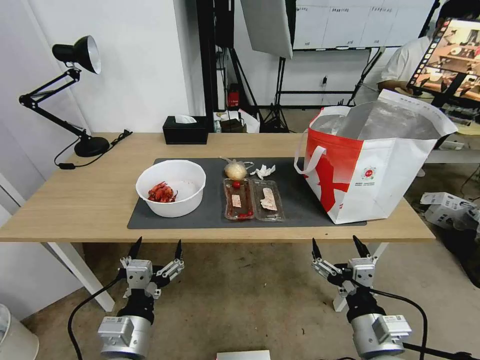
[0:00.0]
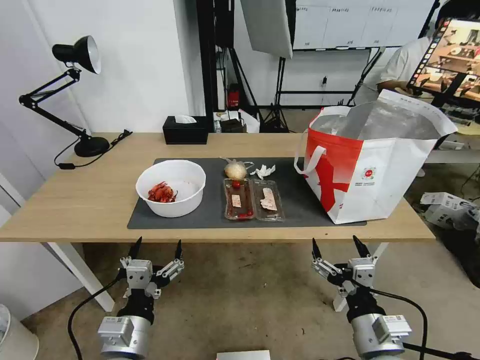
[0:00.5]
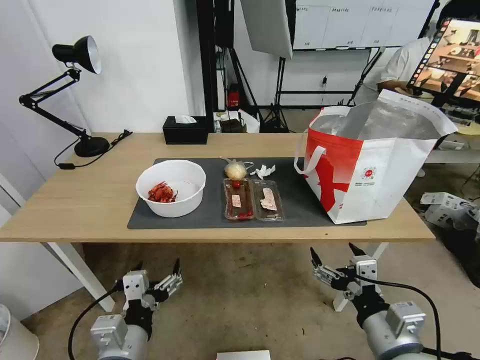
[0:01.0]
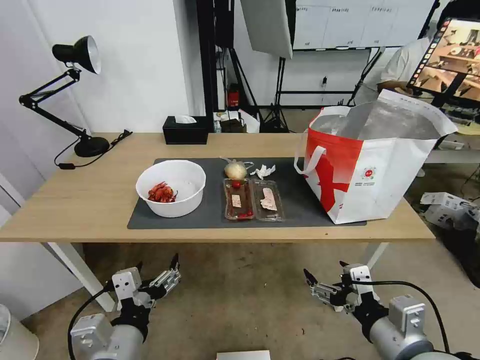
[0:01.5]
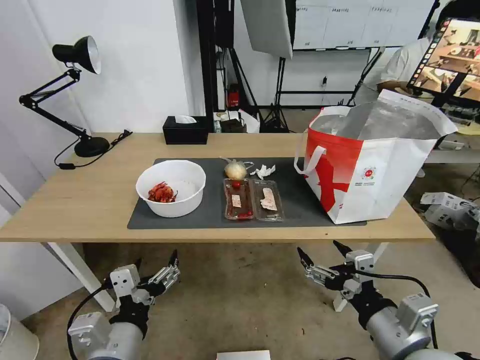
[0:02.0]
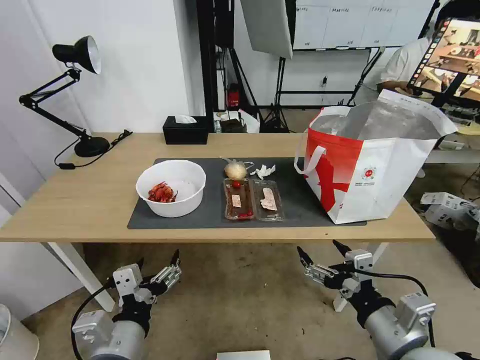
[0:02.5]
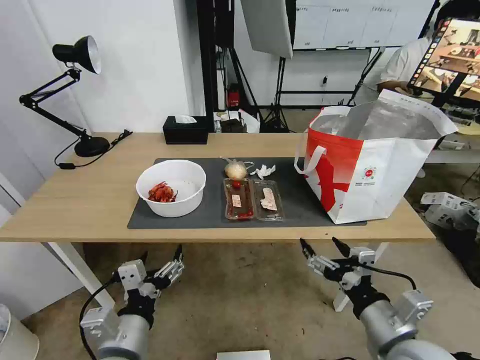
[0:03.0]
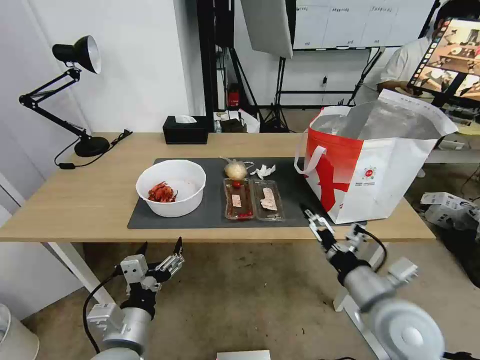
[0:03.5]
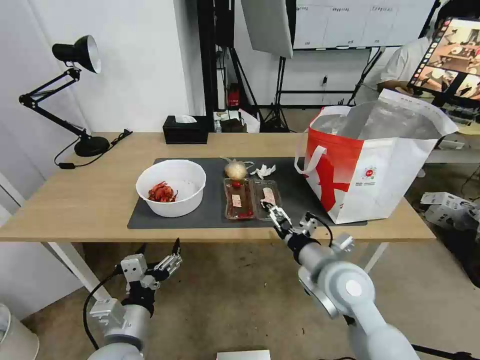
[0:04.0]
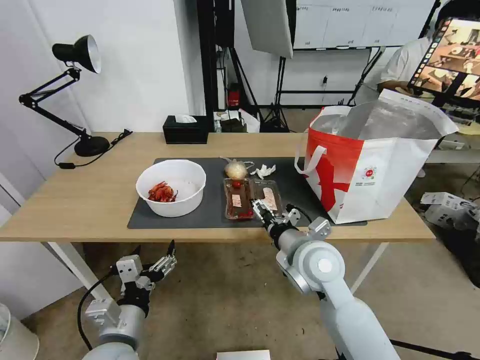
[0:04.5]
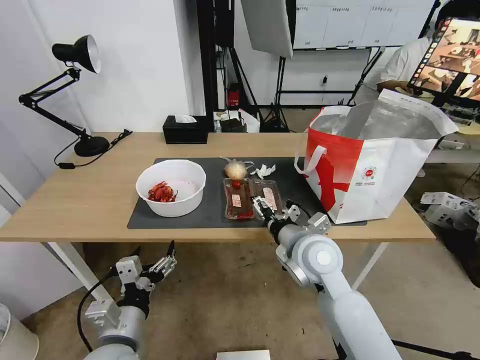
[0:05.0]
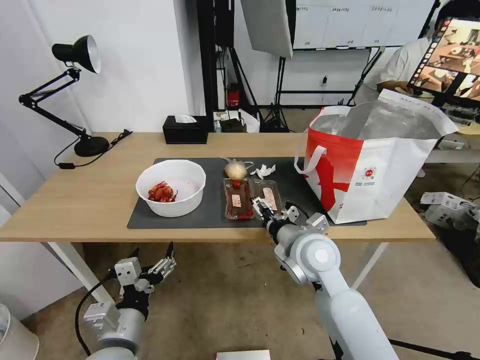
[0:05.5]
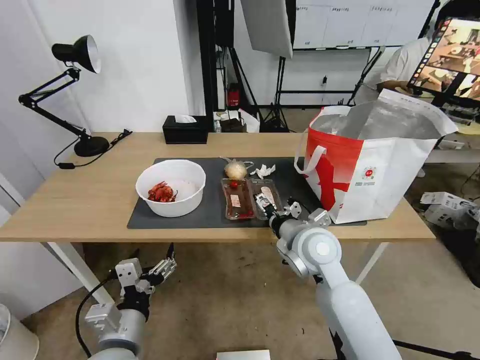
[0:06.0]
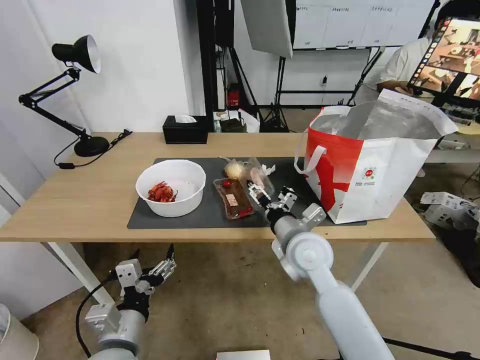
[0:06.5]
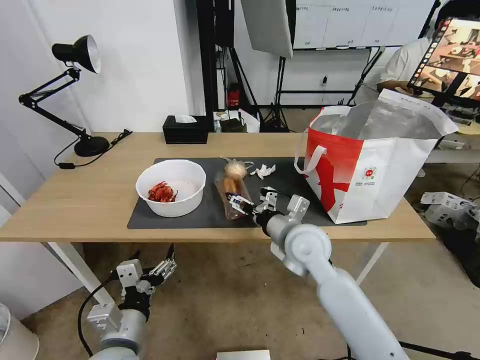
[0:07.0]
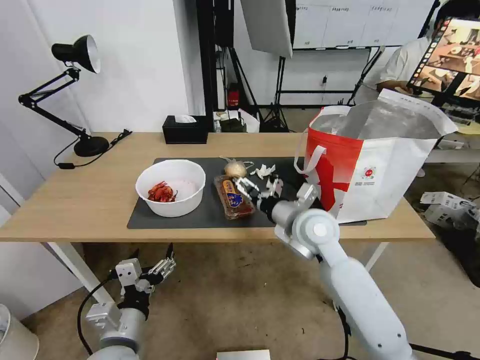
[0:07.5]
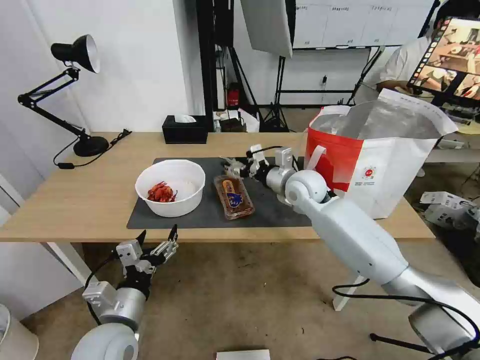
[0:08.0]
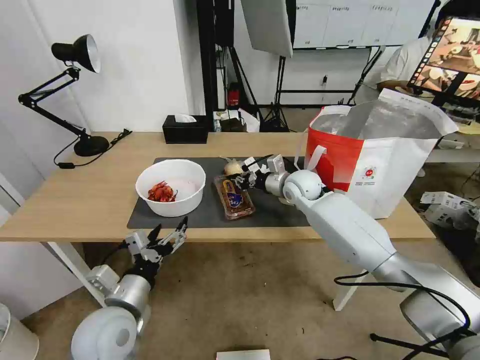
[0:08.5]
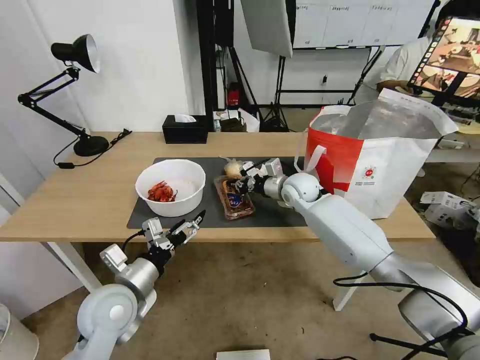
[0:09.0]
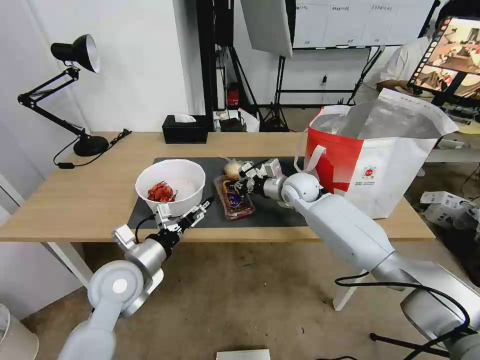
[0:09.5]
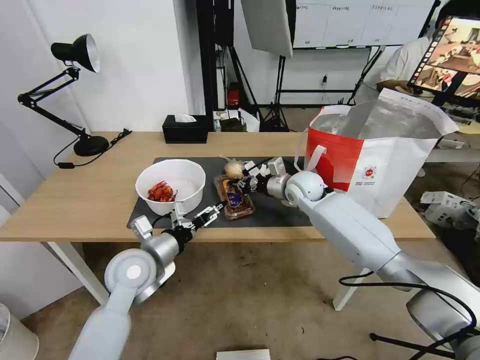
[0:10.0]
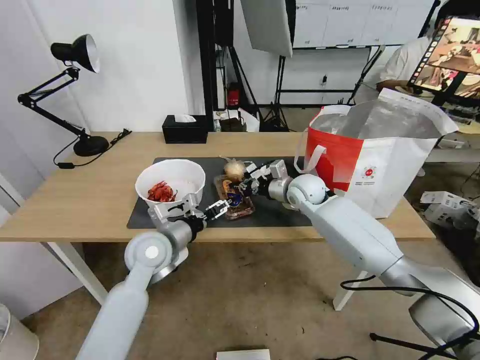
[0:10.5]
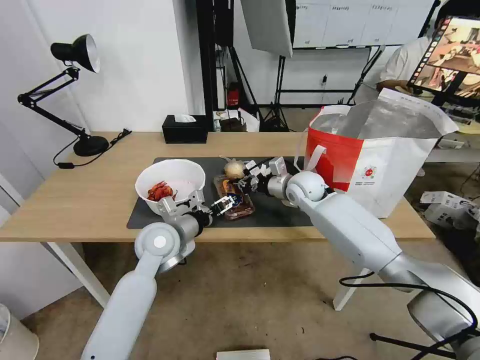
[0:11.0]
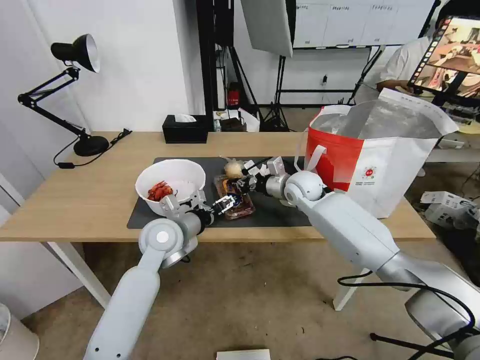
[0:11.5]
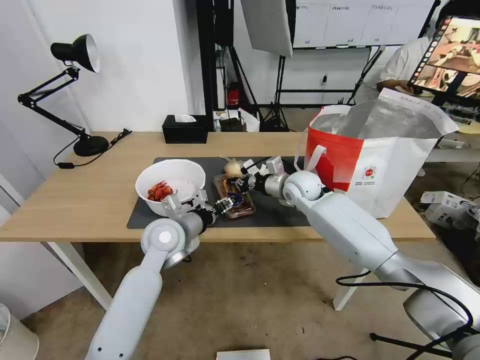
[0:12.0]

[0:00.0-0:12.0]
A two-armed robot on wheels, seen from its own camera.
Task of the whole recording: Pick up the trash from the table and place it into the takeout bag.
0:02.0 to 0:04.0: The right gripper travels forward and to the left by some 15 cm. The left gripper shifts some 5 cm downward.
0:04.0 to 0:06.0: The right gripper shifts about 5 cm forward.
0:06.0 to 0:08.0: The right gripper shifts roughly 15 cm forward.
0:08.0 to 0:10.0: The left gripper heads forward, covering approximately 15 cm; the right gripper shifts by approximately 5 cm, and closes its fingers.
0:10.0 to 0:12.0: The left gripper is displaced forward and to the right by roughly 10 cm, and closes.

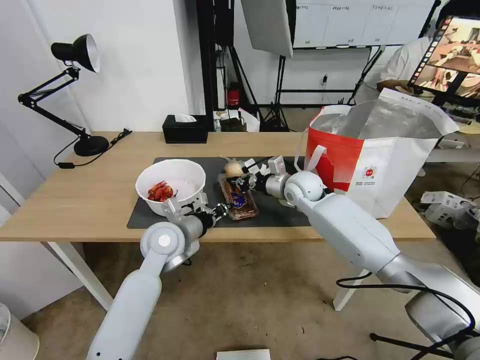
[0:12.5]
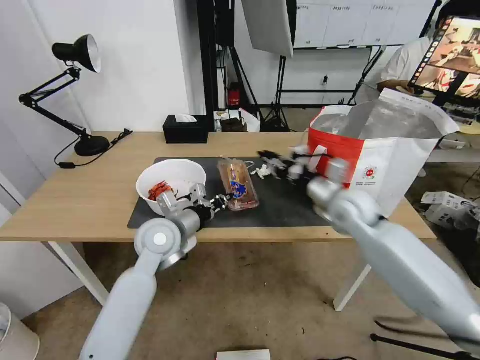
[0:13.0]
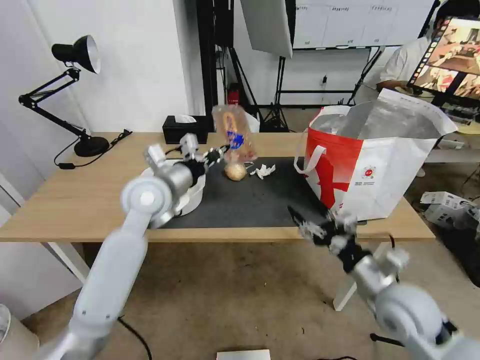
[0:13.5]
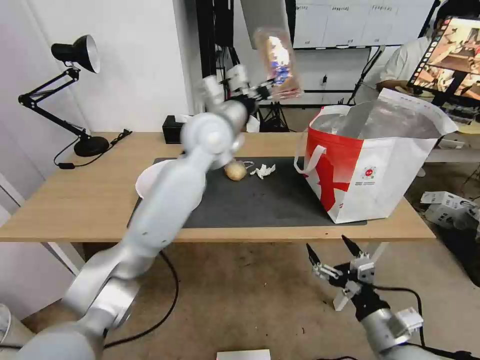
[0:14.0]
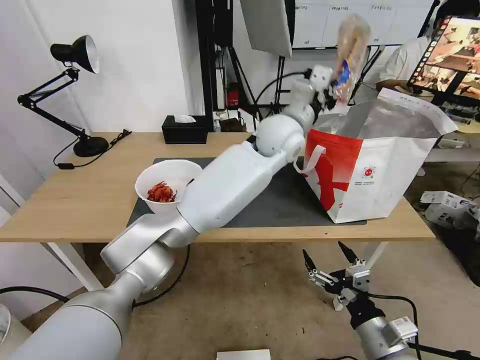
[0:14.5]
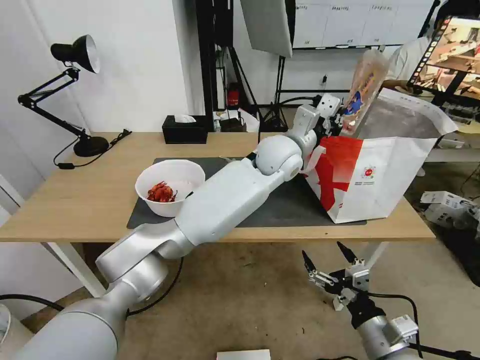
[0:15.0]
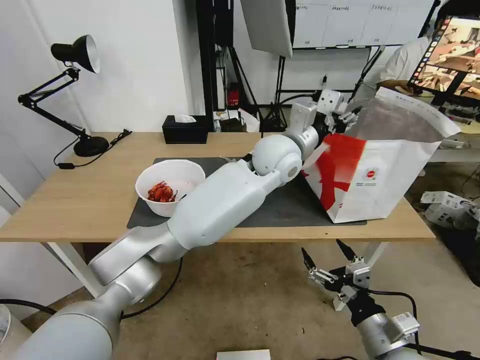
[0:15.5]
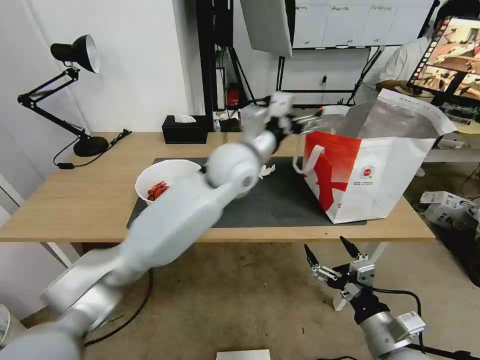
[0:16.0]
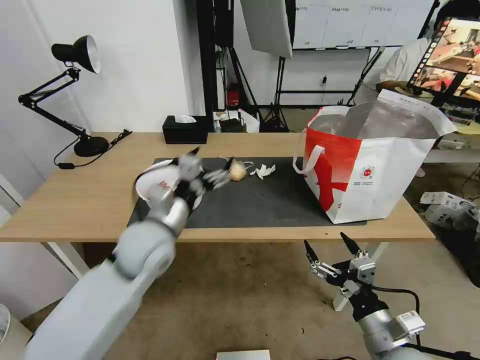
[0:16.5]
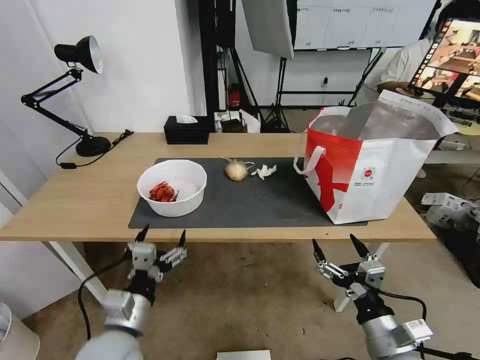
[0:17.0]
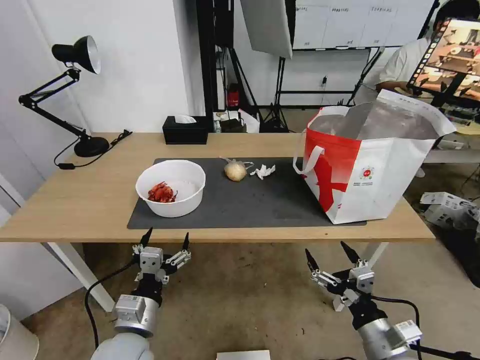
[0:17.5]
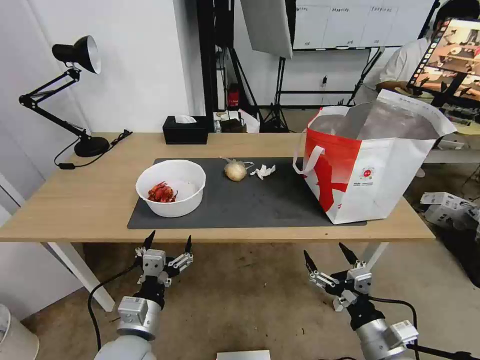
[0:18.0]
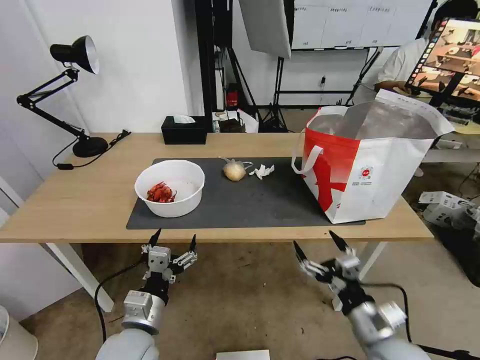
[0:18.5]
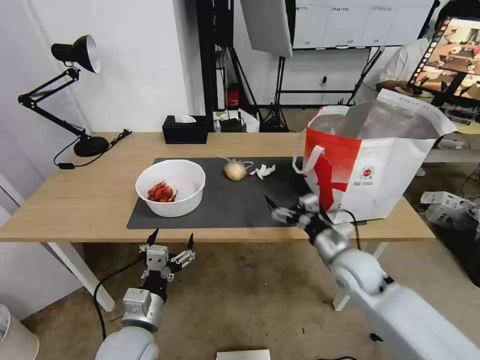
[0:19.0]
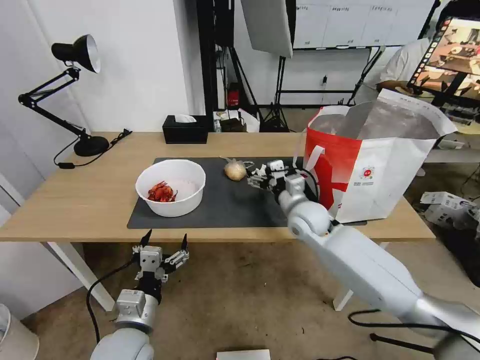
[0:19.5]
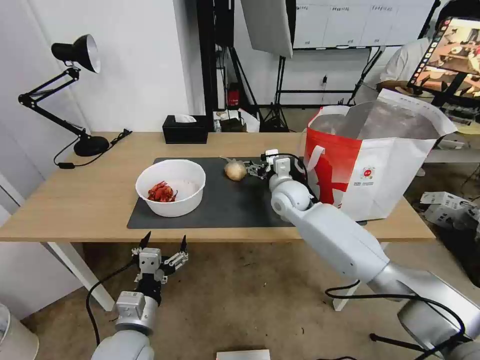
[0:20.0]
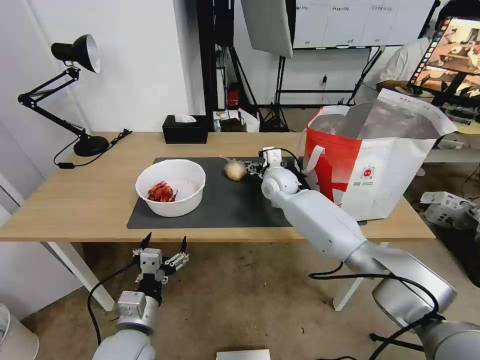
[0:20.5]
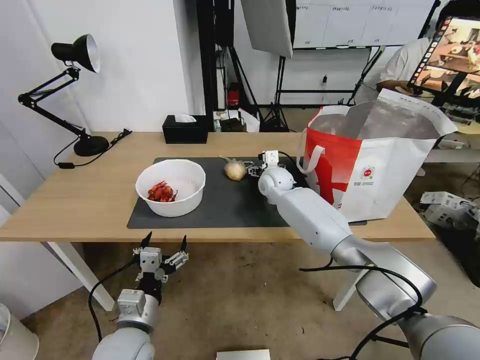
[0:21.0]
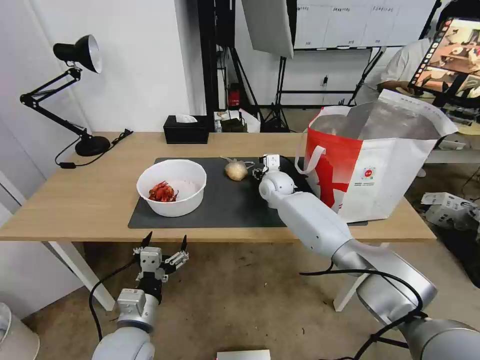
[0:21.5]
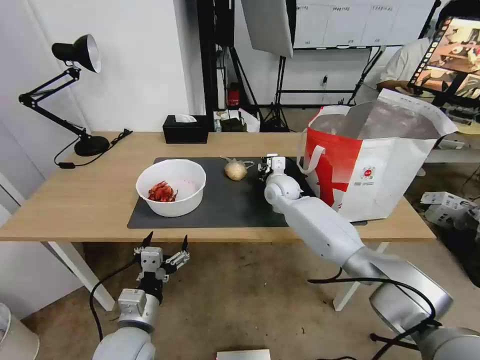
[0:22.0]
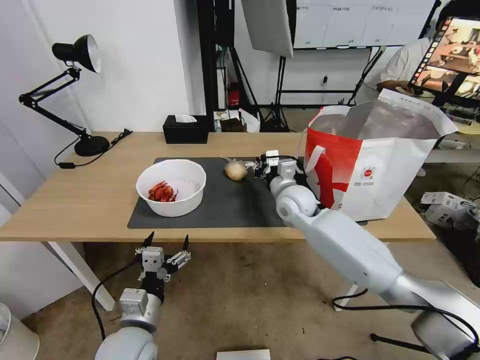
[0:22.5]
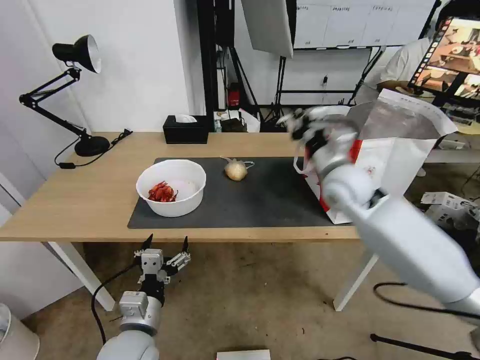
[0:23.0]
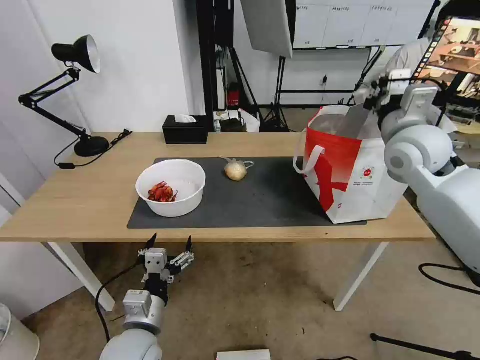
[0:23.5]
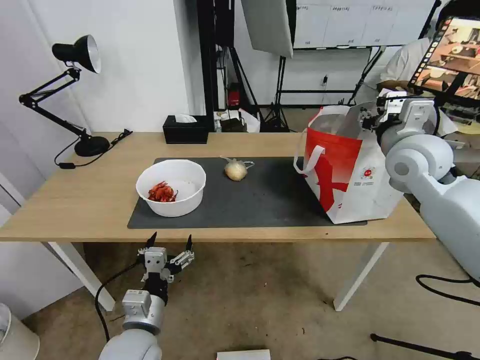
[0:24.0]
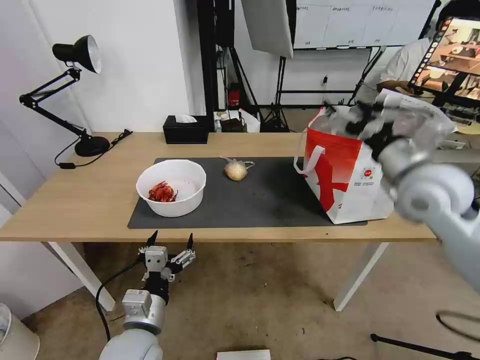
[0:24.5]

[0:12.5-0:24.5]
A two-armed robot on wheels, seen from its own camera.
Task of the whole recording: Pick up the trash from the table and place it into the takeout bag.
0:12.5 to 0:14.5: The right gripper heads backward, covering roughly 40 cm, and opens up, while the left gripper goes approximately 35 cm to the right, upward and forward.
0:14.5 to 0:16.5: The left gripper is displaced to the left, backward and downward by about 35 cm, and opens up.
0:16.5 to 0:18.5: The left gripper is displaced backward and downward by some 20 cm.
0:18.5 to 0:20.5: The right gripper moves forward, approximately 40 cm.
0:20.5 to 0:22.5: The right gripper heads backward, covering roughly 10 cm, and closes its fingers.
0:22.5 to 0:24.5: The right gripper travels to the right, upward and backward by approximately 25 cm, and opens.

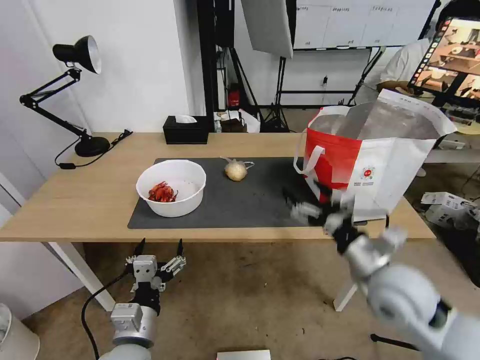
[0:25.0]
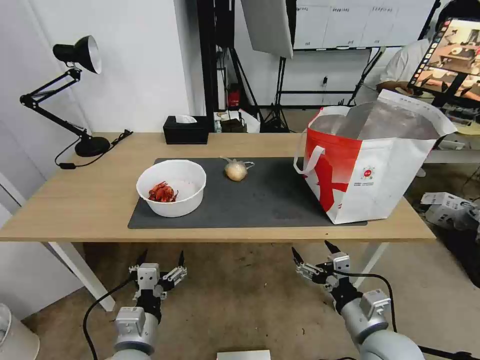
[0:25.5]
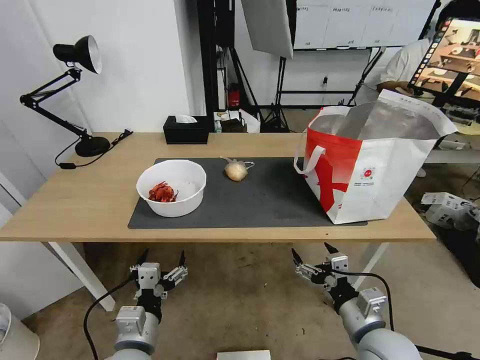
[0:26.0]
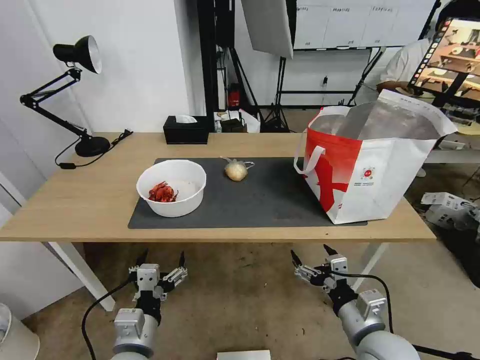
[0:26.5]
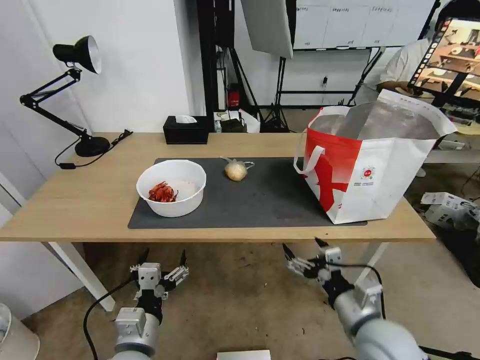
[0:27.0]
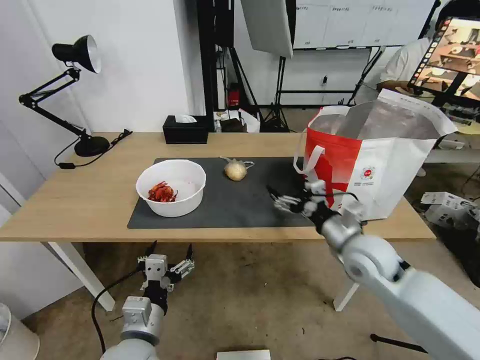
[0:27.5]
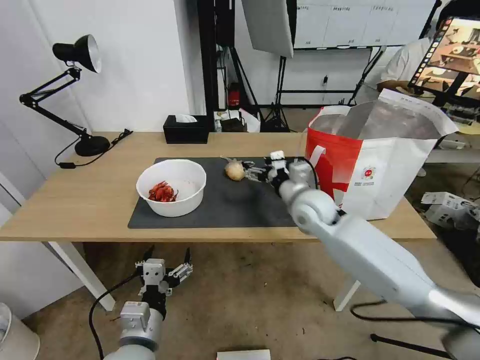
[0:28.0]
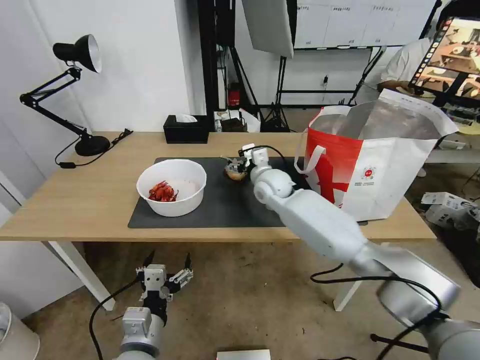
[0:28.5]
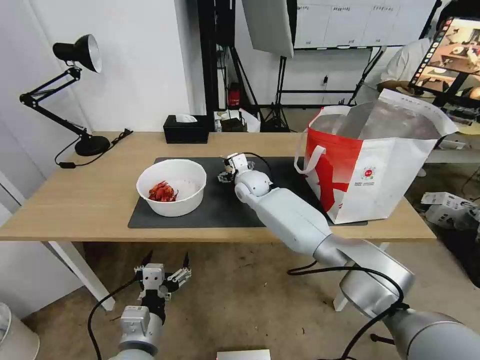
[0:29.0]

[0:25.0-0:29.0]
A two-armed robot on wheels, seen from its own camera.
Task of the whole recording: Pick up the trash from the table and place it into the takeout bag.
0:25.0 to 0:27.0: The right gripper is displaced downward and backward by some 10 cm.
0:27.0 to 0:29.0: The right gripper heads forward and to the left, covering roughly 40 cm.
